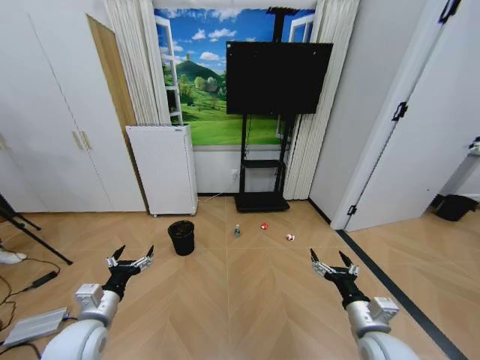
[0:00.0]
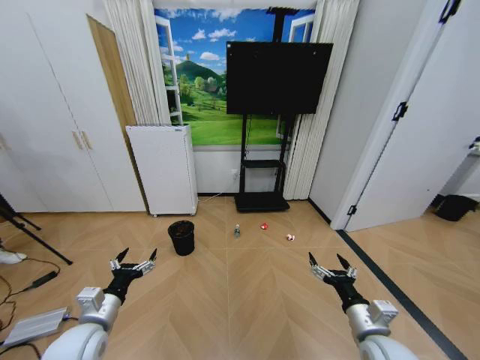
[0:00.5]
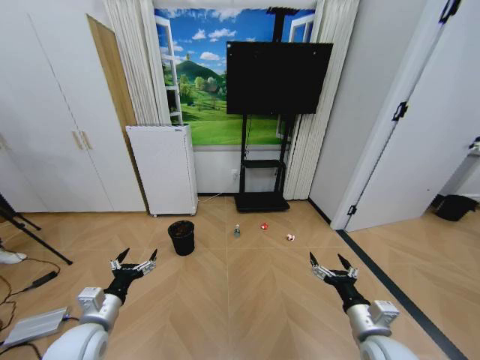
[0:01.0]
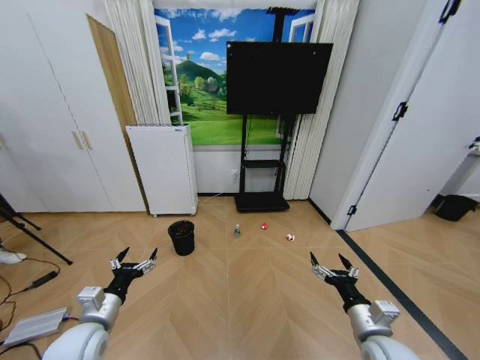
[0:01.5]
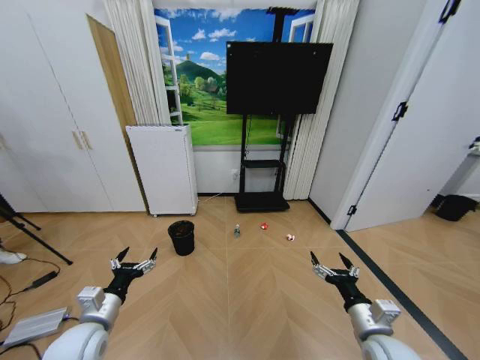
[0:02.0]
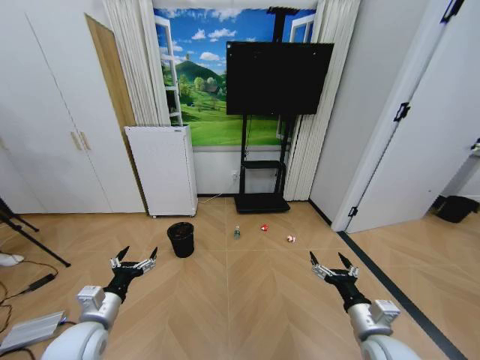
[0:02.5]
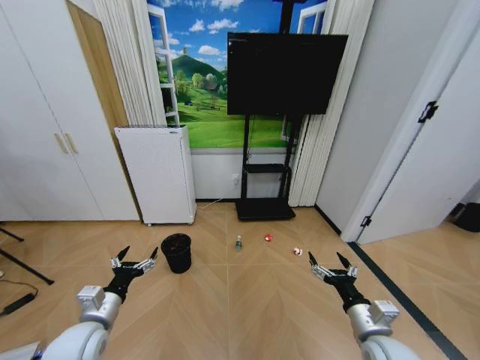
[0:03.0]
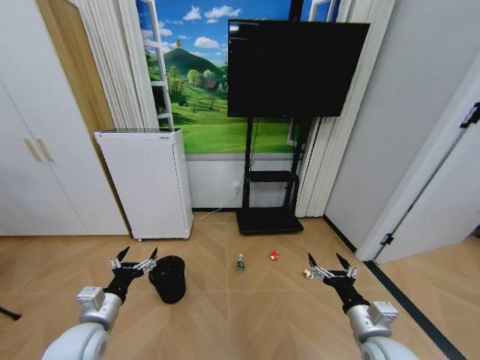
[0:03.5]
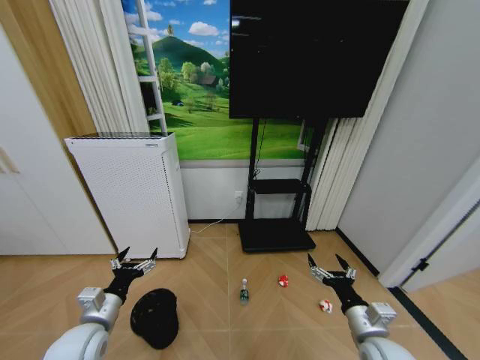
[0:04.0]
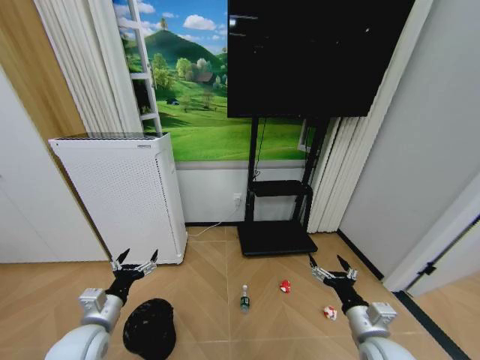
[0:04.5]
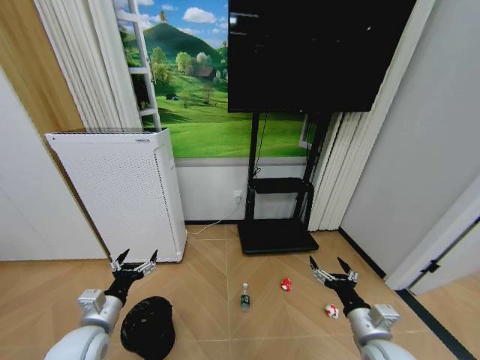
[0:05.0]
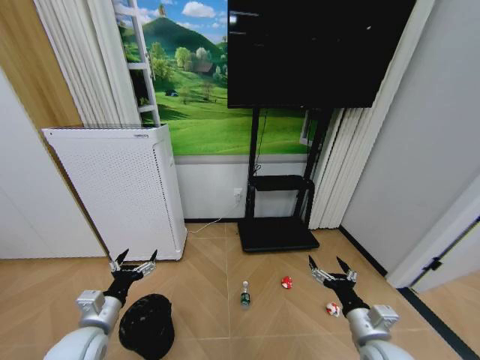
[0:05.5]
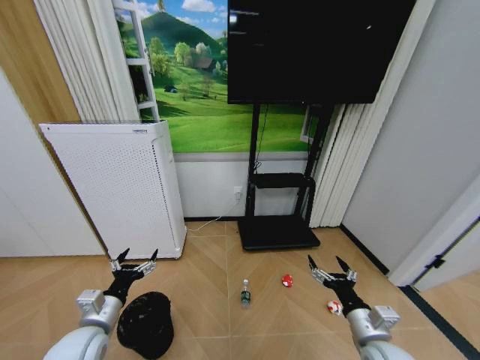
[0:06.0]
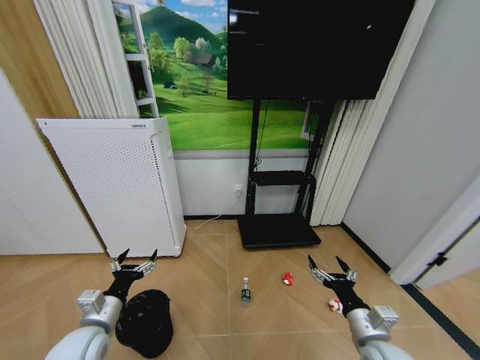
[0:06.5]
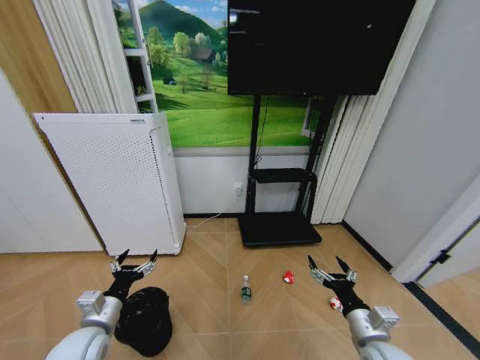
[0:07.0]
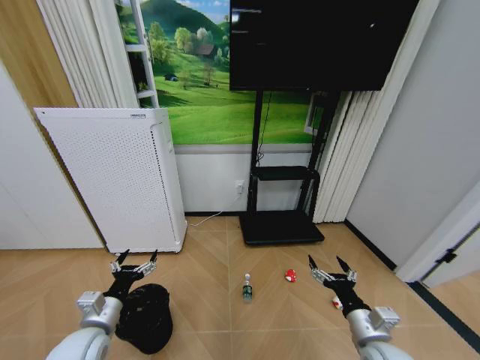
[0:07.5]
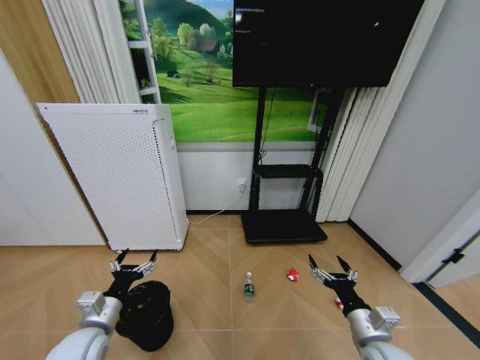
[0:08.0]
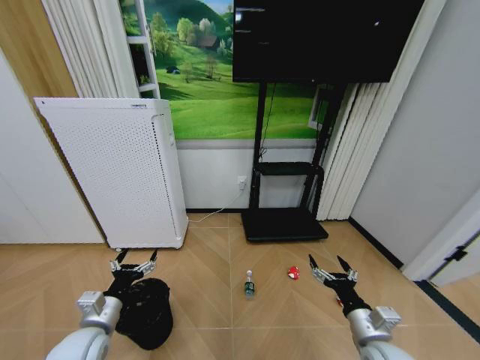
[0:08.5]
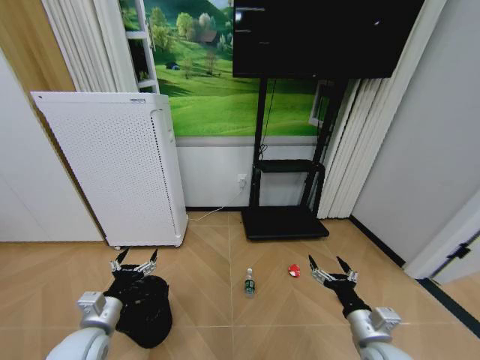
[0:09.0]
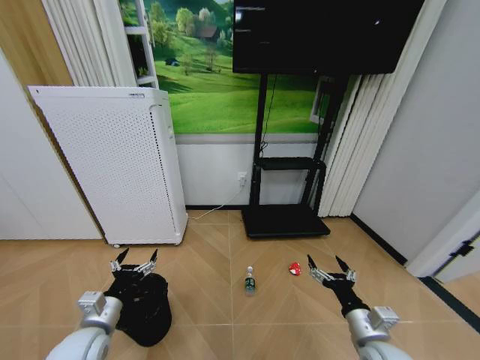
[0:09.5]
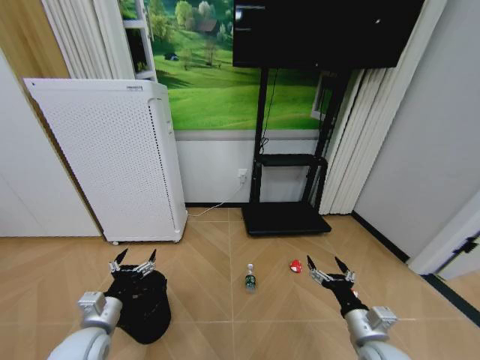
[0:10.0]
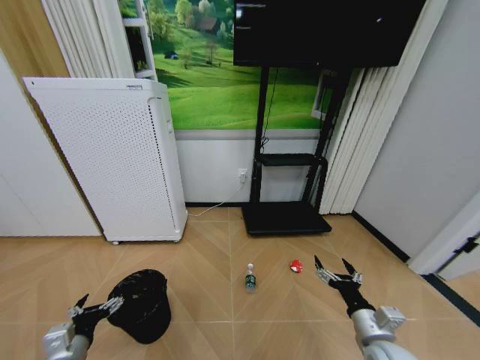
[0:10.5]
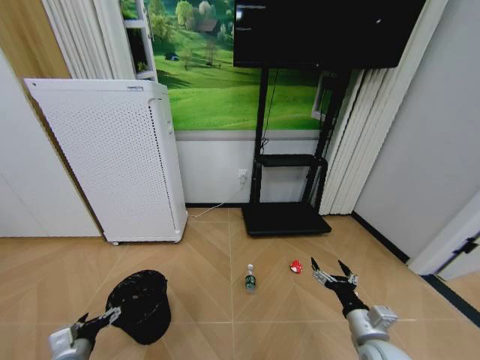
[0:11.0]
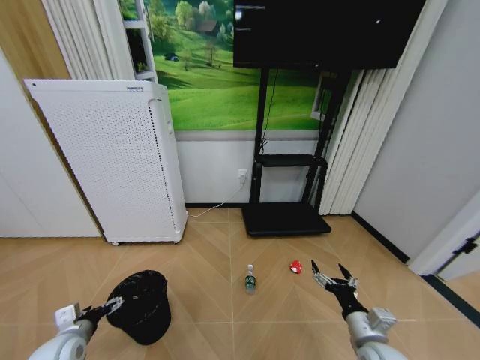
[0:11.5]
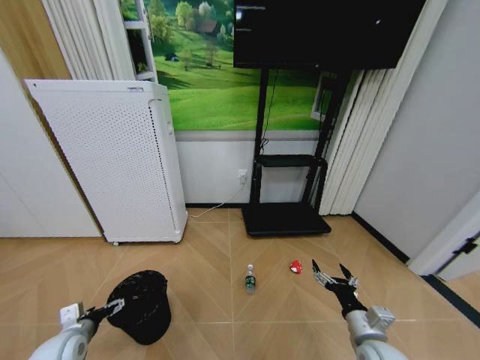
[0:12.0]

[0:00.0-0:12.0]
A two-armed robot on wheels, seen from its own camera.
Task of the whole recording: Pick up the trash bin and place the garbage on the floor into it.
0:08.0 to 0:10.0: Both grippers stay put.
0:10.0 to 0:12.0: The left gripper goes about 10 cm to the left and downward.

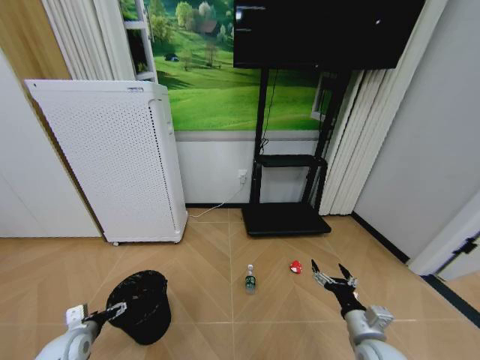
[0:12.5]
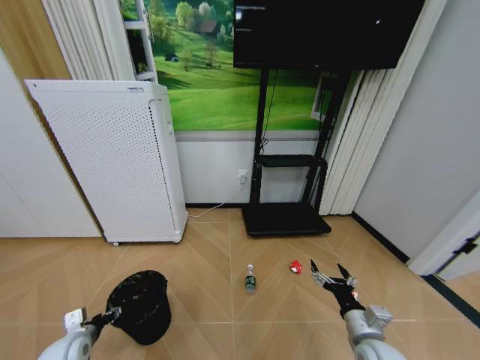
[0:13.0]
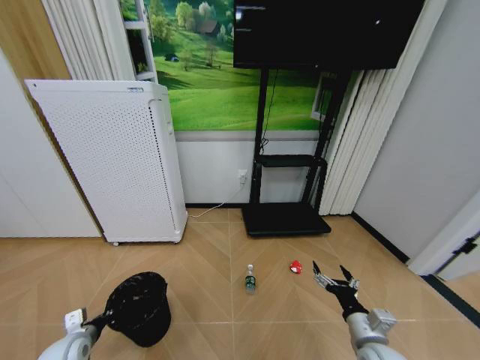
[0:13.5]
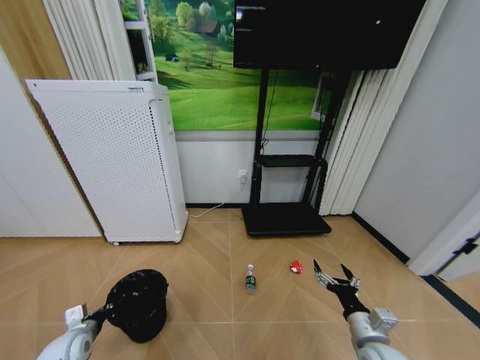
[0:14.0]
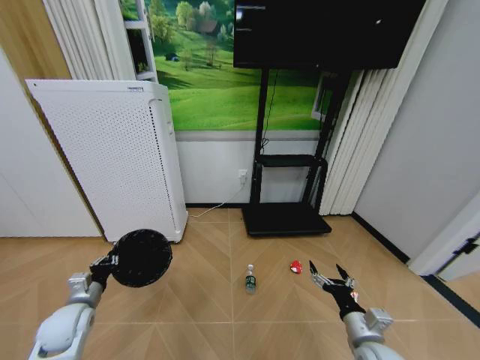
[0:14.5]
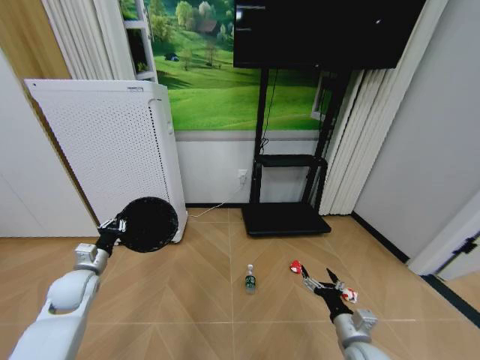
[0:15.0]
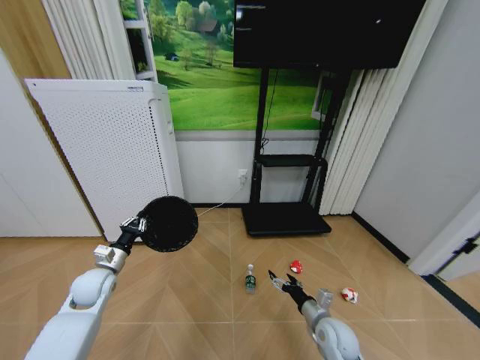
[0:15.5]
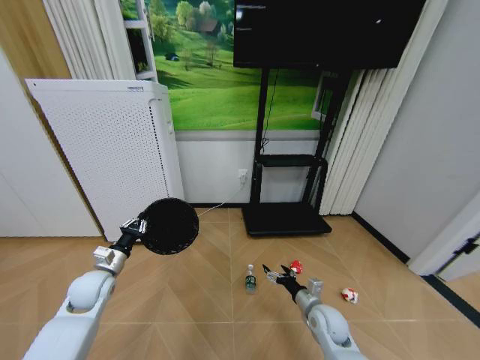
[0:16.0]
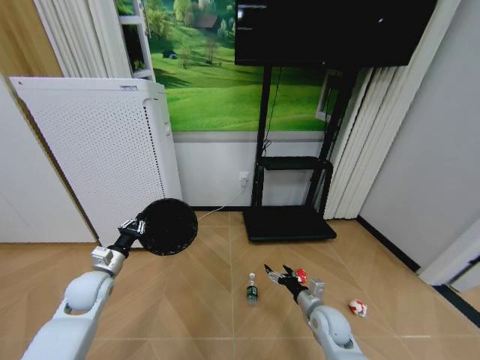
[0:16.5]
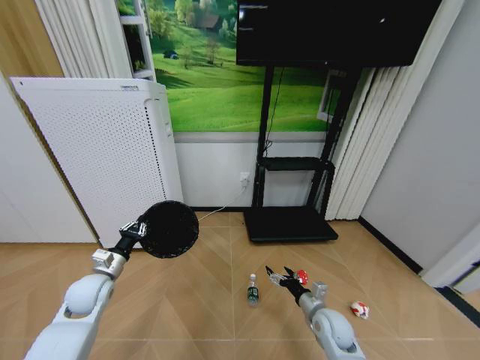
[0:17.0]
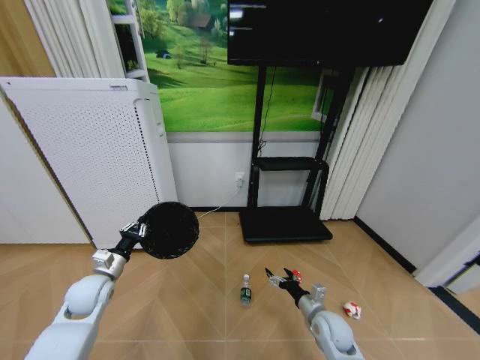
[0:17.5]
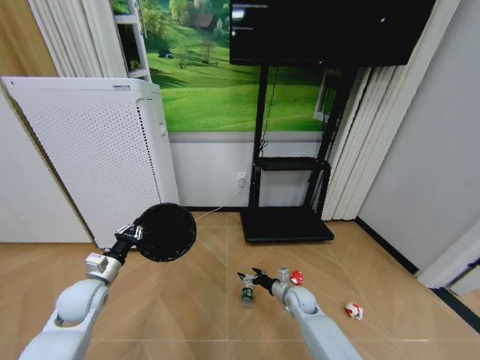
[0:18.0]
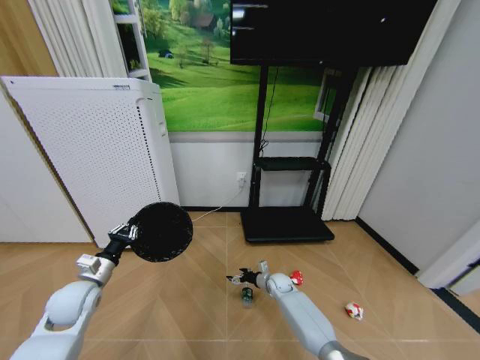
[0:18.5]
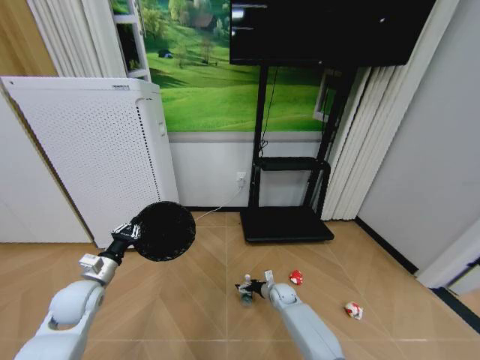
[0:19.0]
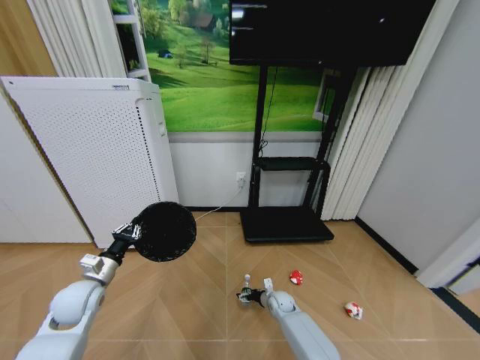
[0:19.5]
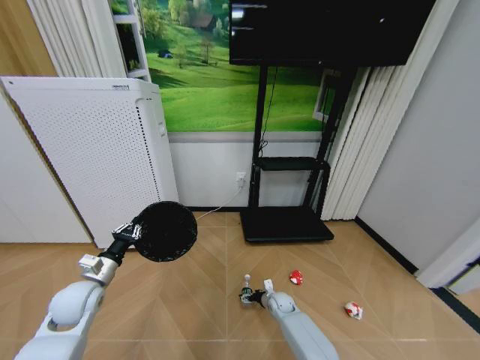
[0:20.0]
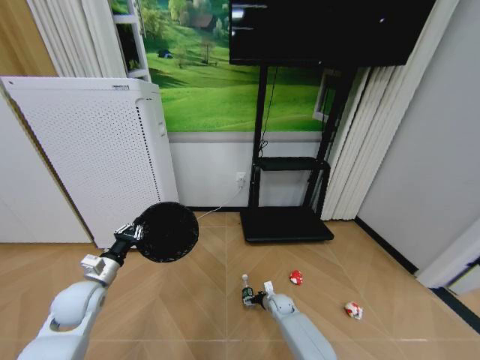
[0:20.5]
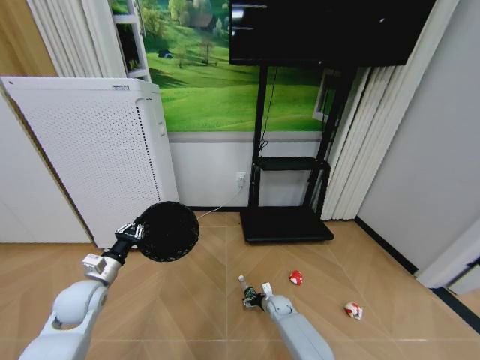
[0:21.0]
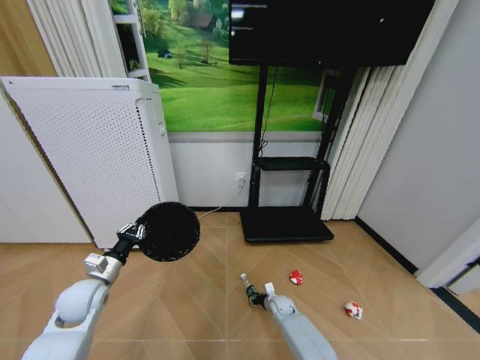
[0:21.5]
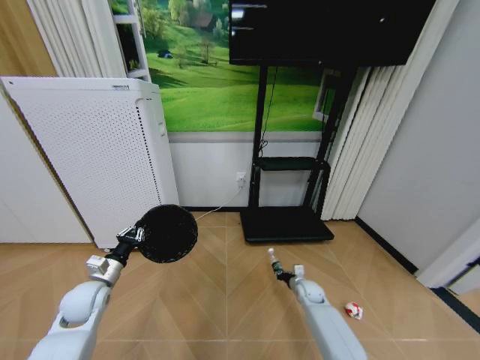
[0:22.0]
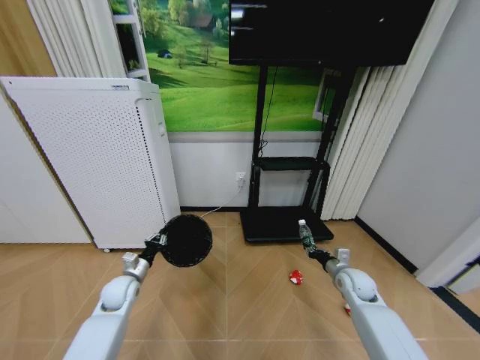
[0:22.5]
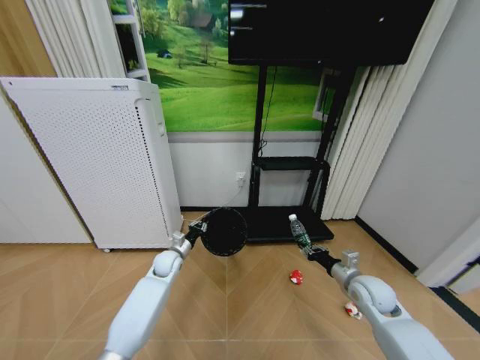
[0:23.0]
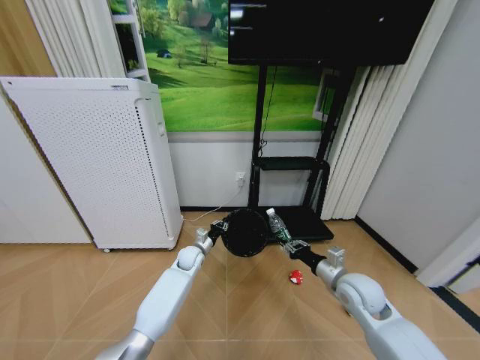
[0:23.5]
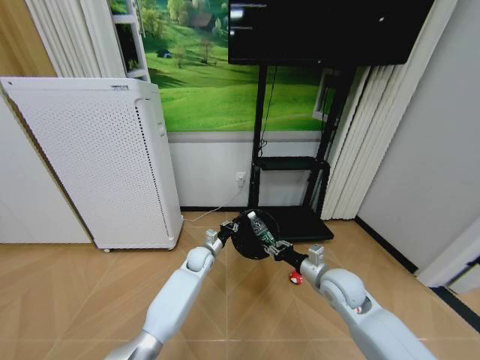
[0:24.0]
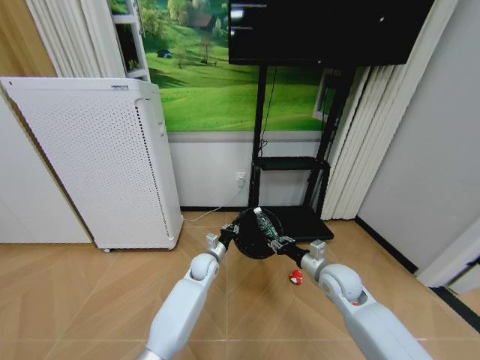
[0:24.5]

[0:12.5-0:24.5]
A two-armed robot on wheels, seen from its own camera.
Task of the whole recording: Pick up the trash bin and place the garbage on the floor into it.
0:12.5 to 0:14.5: The left gripper is displaced upward by roughly 5 cm, and closes its fingers.
0:14.5 to 0:16.5: The right gripper heads forward and downward, covering approximately 10 cm. Meanwhile the left gripper moves forward, some 5 cm.
0:16.5 to 0:18.5: The right gripper heads forward, downward and to the left, covering about 20 cm.
0:18.5 to 0:20.5: The right gripper heads downward and backward, covering some 10 cm.
0:20.5 to 0:22.5: The right gripper heads upward and to the right, covering about 30 cm, and closes up; the left gripper travels downward and forward by roughly 10 cm.
0:22.5 to 0:24.5: The left gripper goes roughly 25 cm to the right. Meanwhile the right gripper is displaced to the left and upward by approximately 10 cm.

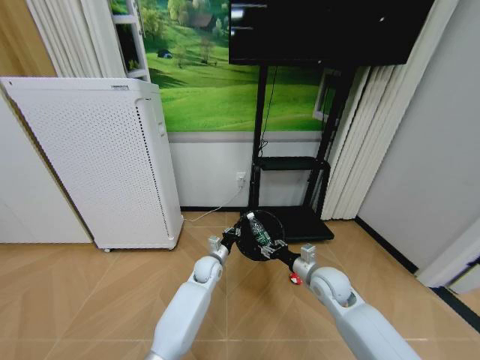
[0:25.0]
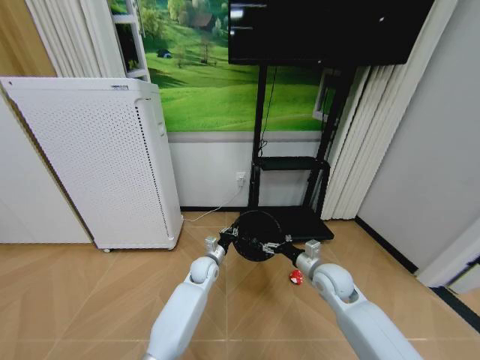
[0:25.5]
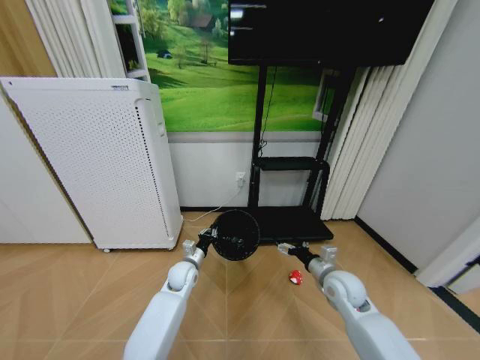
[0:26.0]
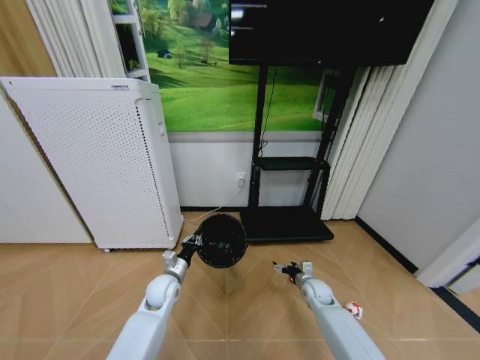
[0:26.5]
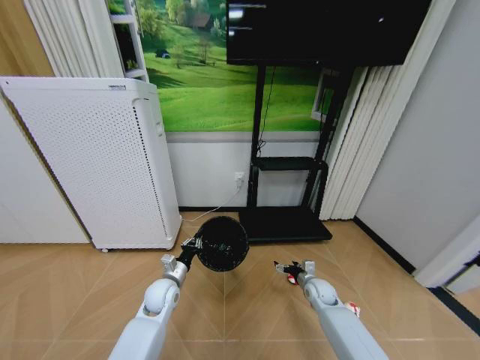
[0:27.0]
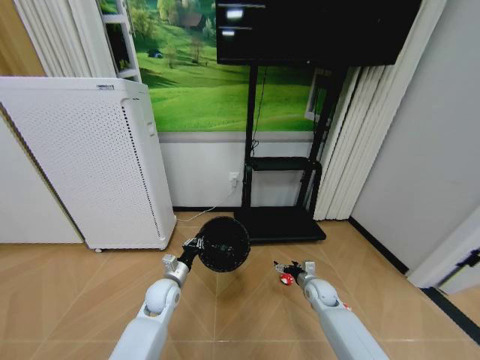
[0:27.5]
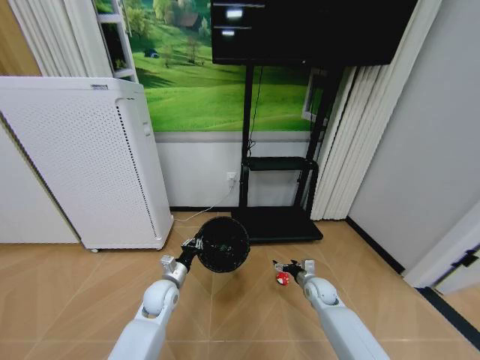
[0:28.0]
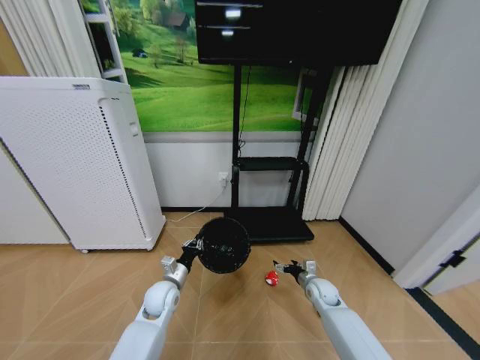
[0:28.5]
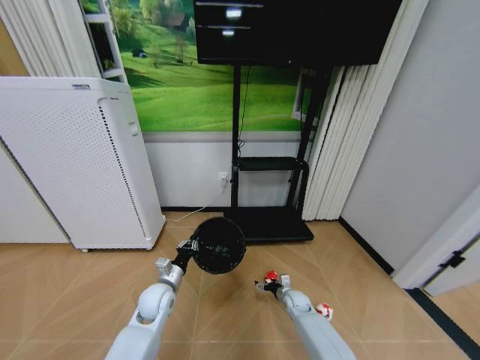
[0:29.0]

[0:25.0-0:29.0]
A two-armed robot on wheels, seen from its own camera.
Task of the whole recording: Pick up the trash bin and place the garbage on the floor into it.
0:25.0 to 0:27.0: The left gripper goes approximately 15 cm to the left and backward. Meanwhile the right gripper heads downward, covering roughly 15 cm, and opens its fingers.
0:27.0 to 0:29.0: The right gripper heads downward and to the left, covering about 10 cm.
